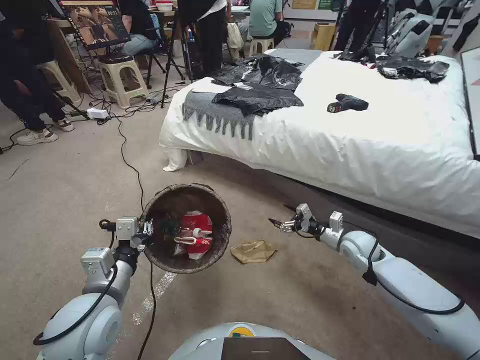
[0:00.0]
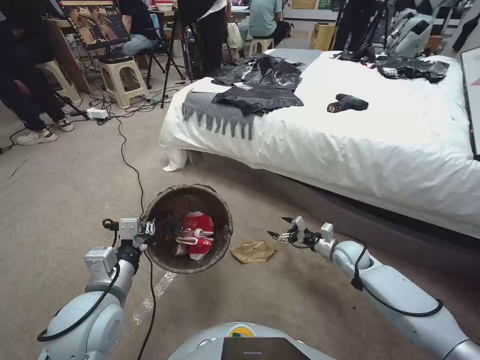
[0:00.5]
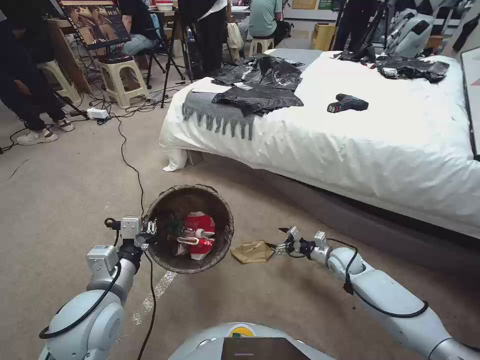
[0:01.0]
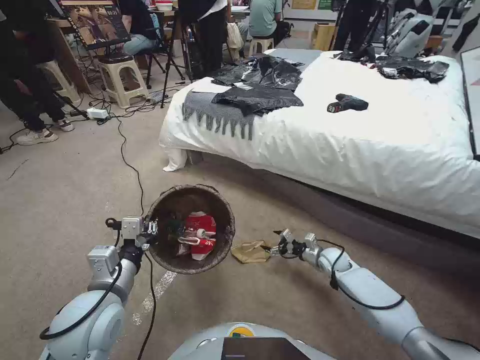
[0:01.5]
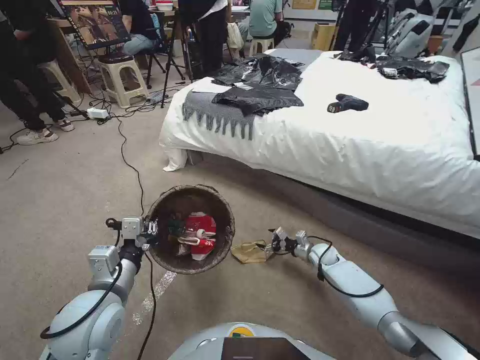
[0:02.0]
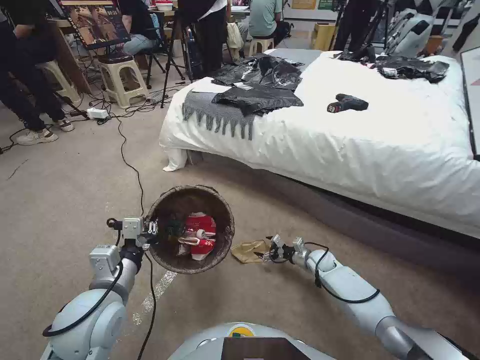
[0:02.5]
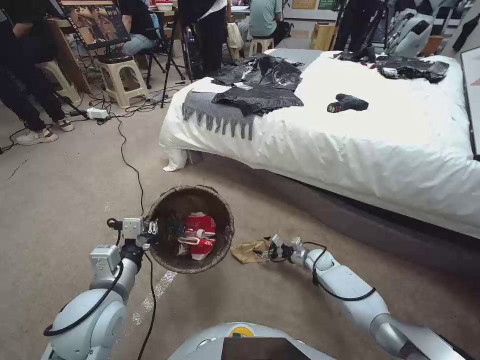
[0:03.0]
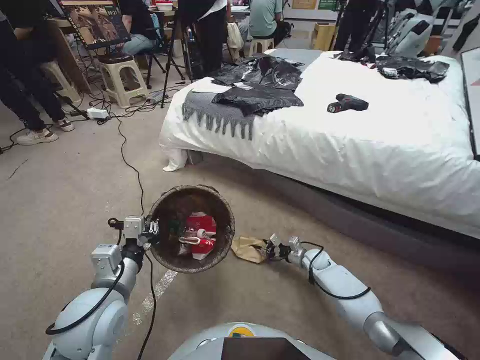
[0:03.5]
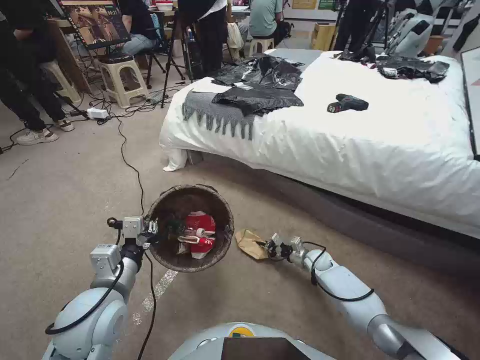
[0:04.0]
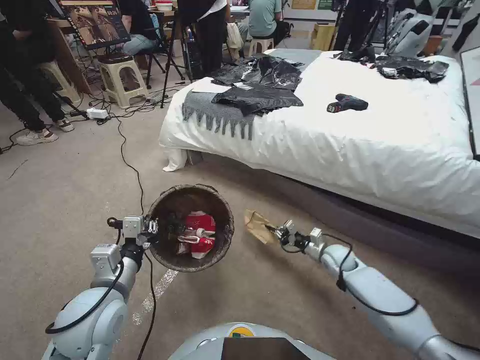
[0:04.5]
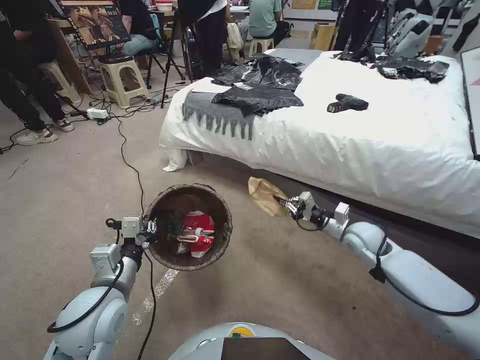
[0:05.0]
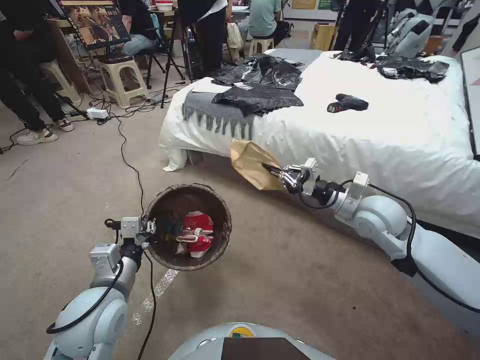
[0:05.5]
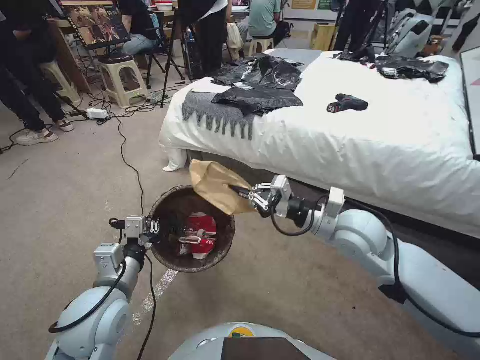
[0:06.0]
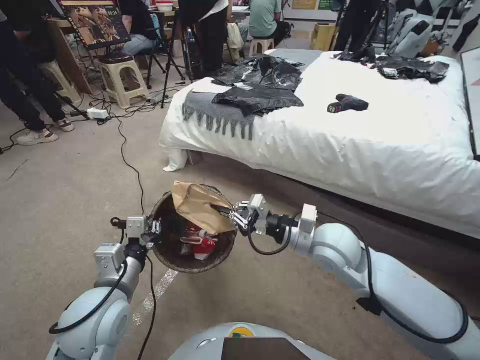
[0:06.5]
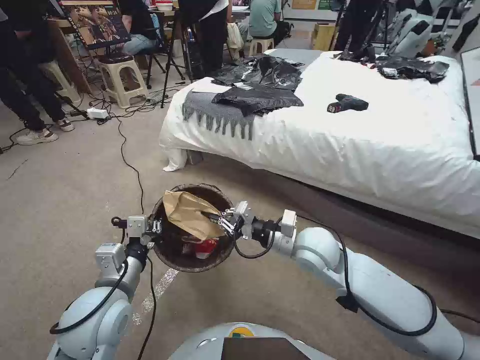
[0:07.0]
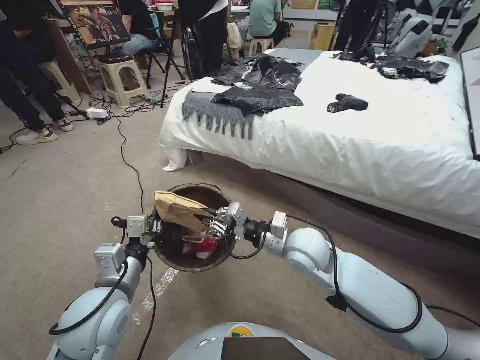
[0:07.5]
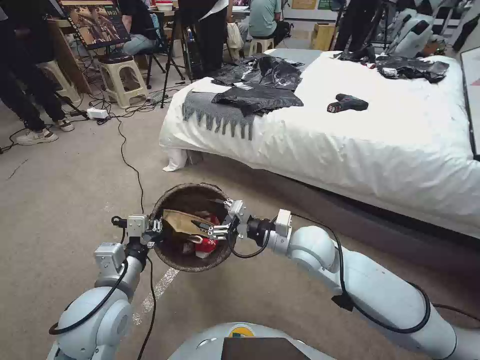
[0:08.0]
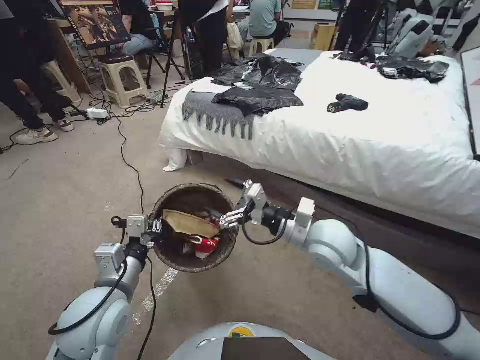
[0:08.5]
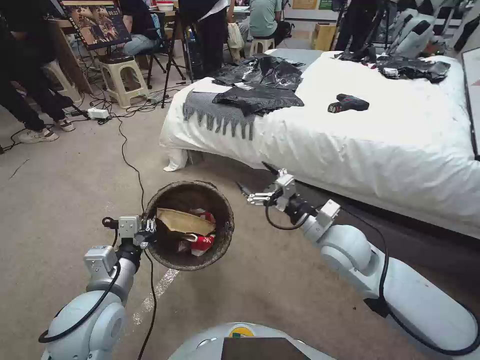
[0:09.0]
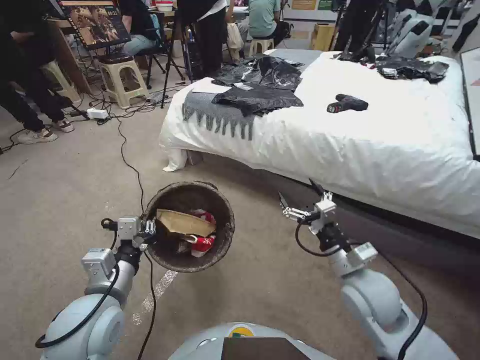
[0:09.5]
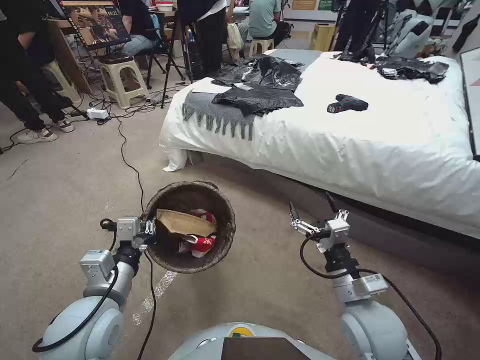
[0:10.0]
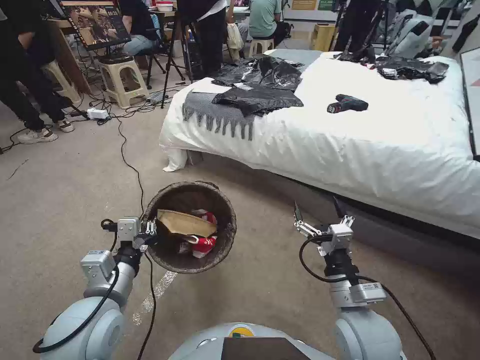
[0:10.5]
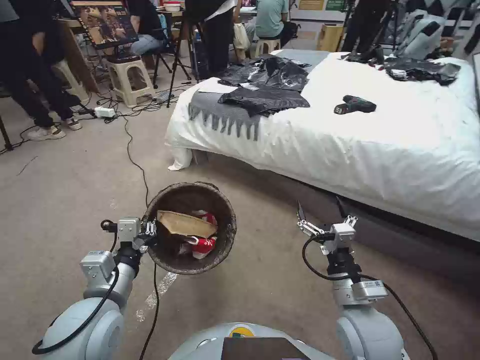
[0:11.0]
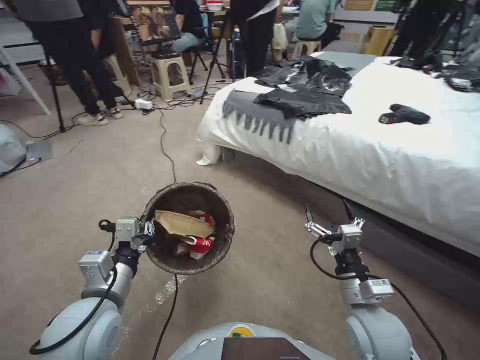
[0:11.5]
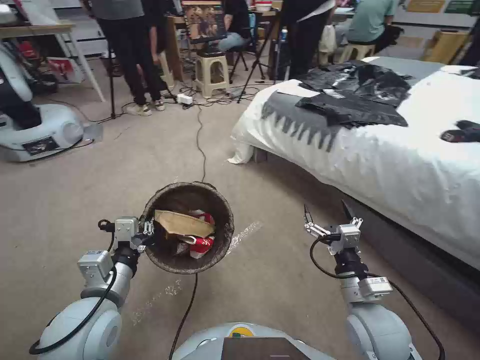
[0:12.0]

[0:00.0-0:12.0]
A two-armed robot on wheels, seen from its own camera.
Task of the whole recording: Pick up the trash bin, then pick up the garbage from the floor and place it into the trash bin.
0:00.0 to 0:02.0: The right gripper heads downward, covering approximately 15 cm.
0:02.0 to 0:04.0: The right gripper closes.
0:04.0 to 0:06.0: The right gripper moves upward, roughly 40 cm.
0:06.0 to 0:08.0: The right gripper shifts approximately 10 cm to the left and downward, and opens.
0:08.0 to 0:10.0: The right gripper goes roughly 15 cm backward and to the right, and opens its fingers.

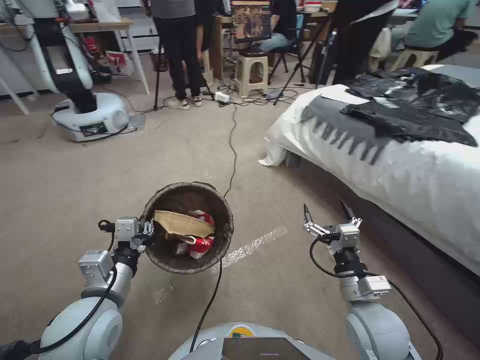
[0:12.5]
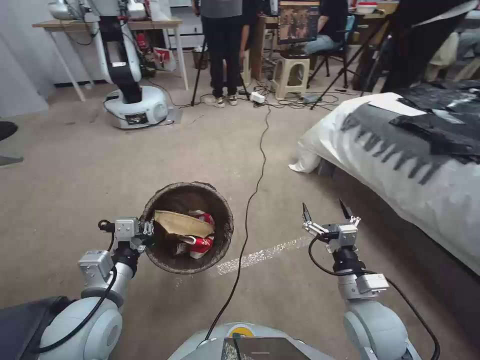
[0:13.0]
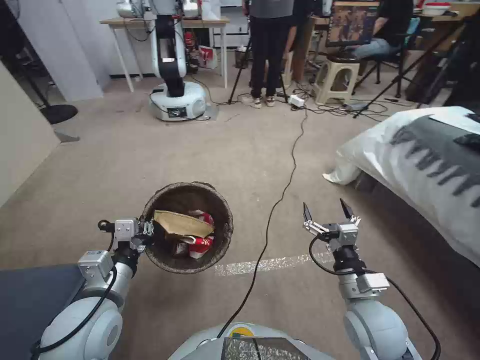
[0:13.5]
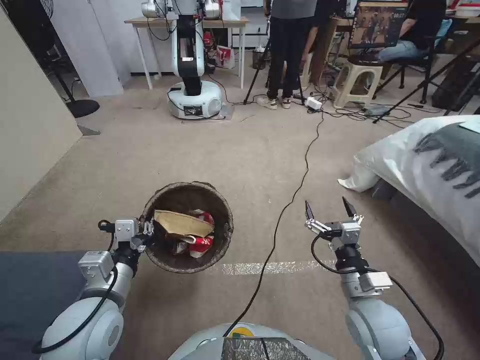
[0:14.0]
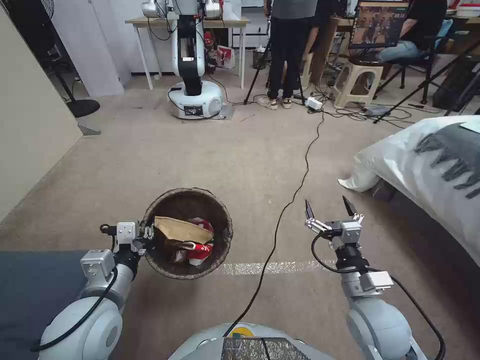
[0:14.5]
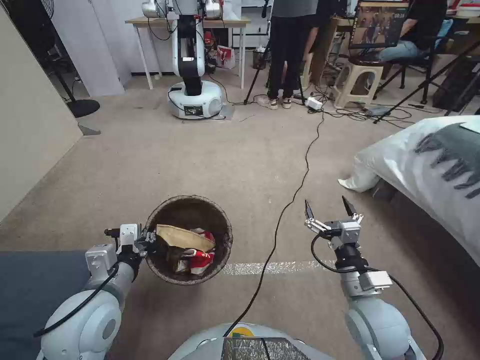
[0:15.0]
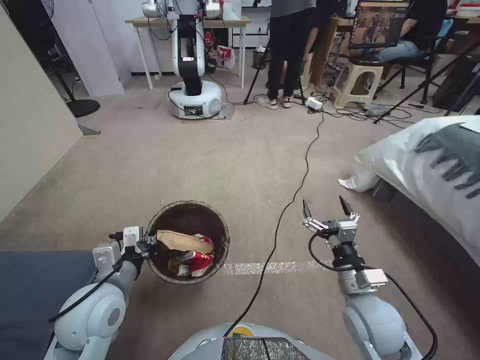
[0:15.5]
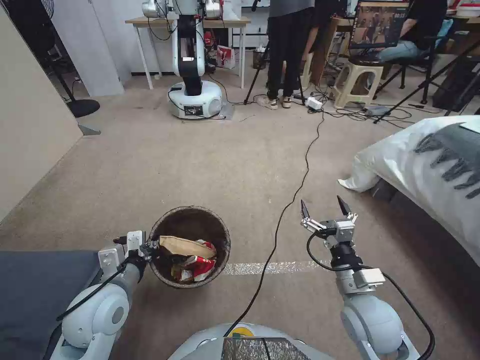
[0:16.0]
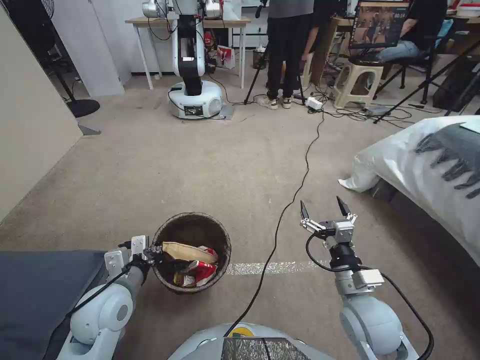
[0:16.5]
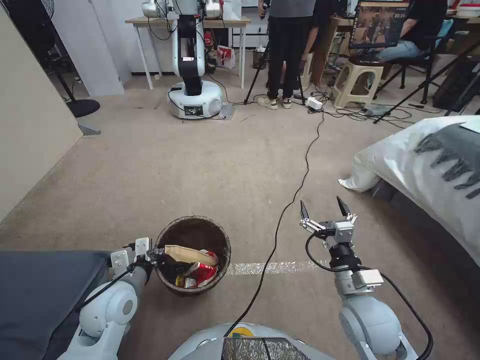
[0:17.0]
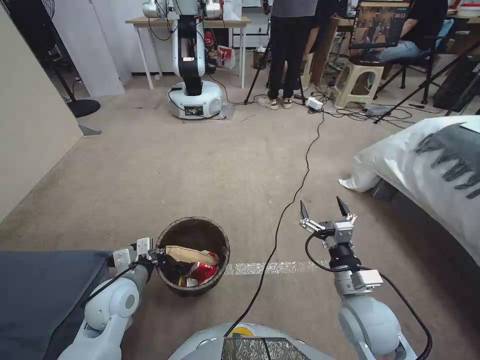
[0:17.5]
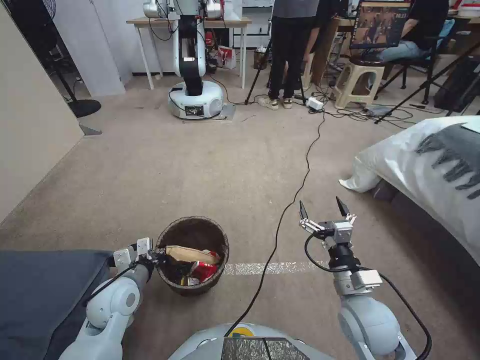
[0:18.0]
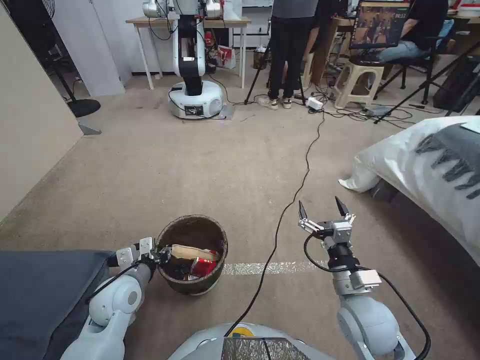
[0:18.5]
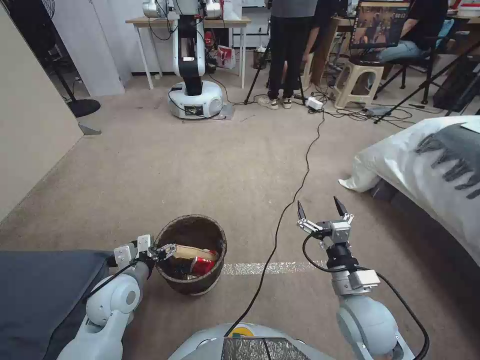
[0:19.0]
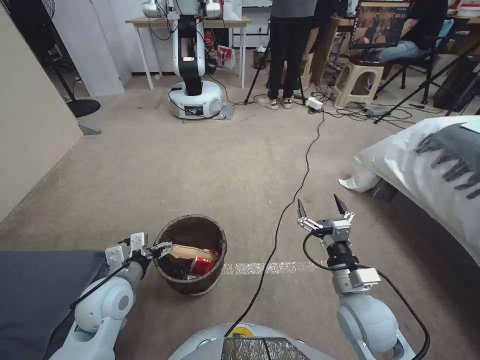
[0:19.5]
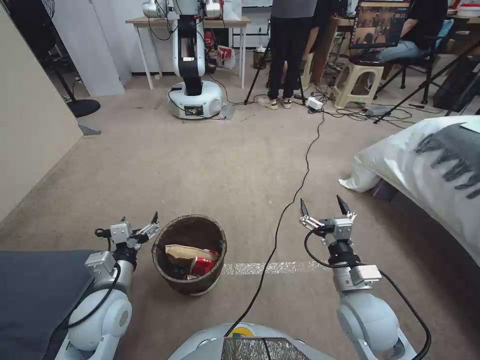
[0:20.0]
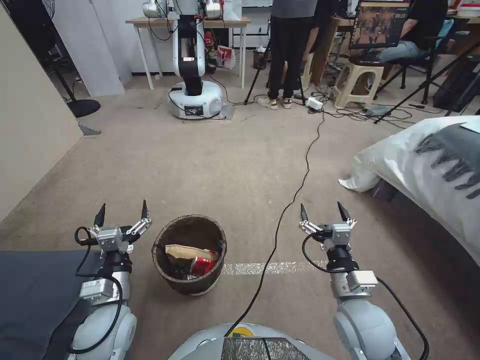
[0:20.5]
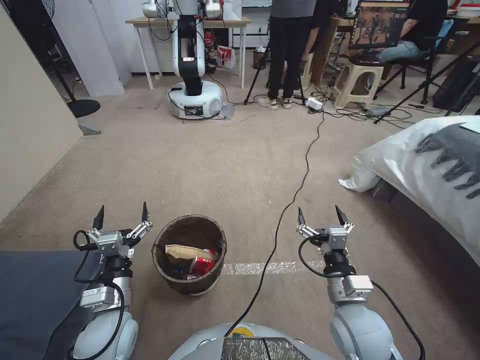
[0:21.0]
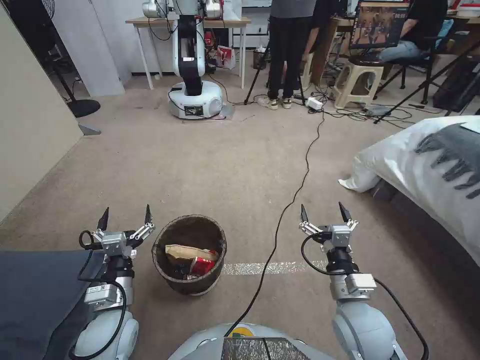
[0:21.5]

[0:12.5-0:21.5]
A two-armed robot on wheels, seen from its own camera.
Task of the whole recording: Pick up the trash bin, then pick up the garbage from the floor and place it into the trash bin.
0:14.5 to 0:17.0: The left gripper shifts roughly 10 cm downward.
0:17.0 to 0:19.5: The left gripper opens.
0:19.5 to 0:21.5: The left gripper goes about 5 cm backward.
